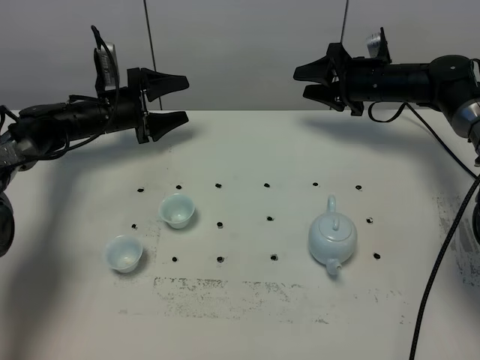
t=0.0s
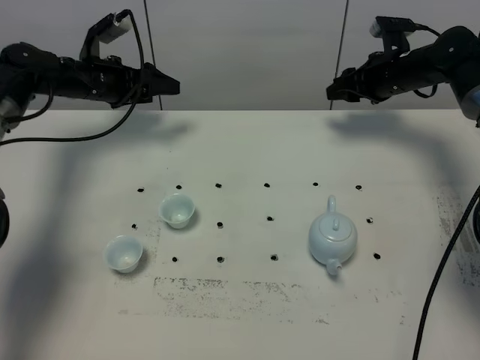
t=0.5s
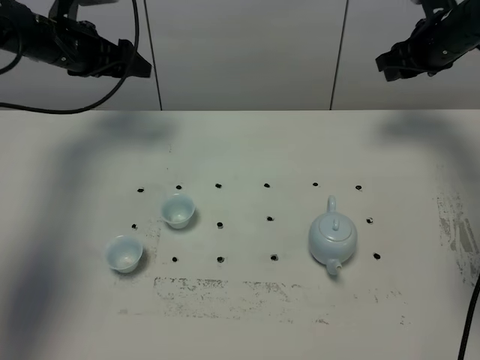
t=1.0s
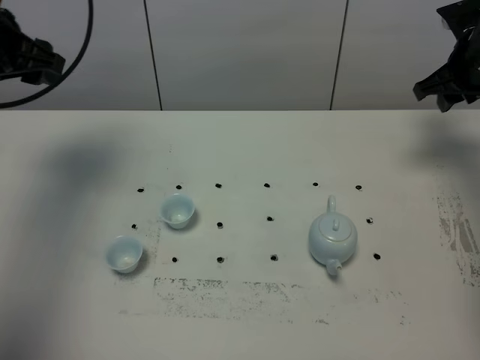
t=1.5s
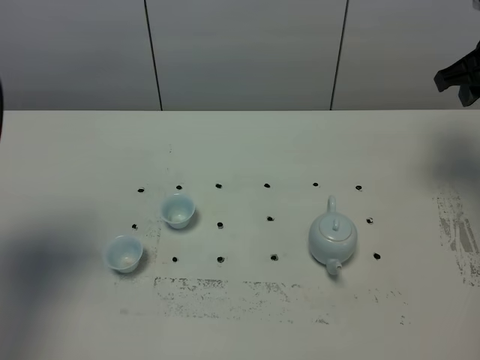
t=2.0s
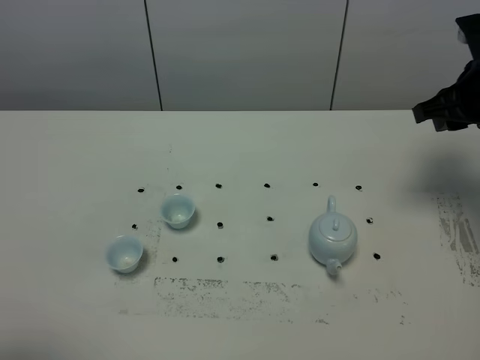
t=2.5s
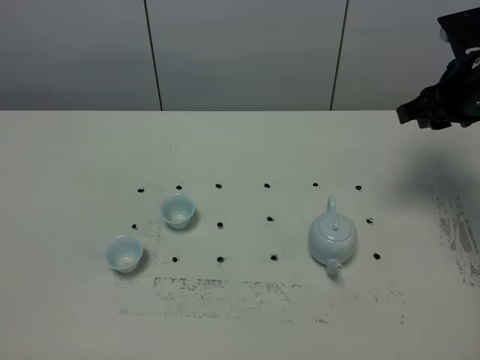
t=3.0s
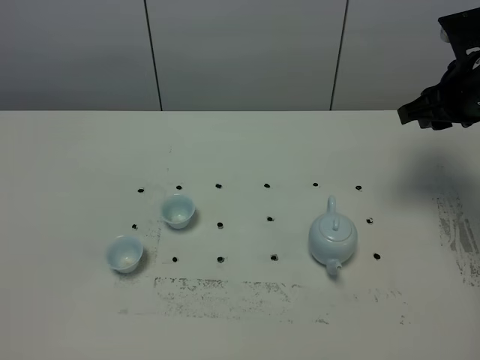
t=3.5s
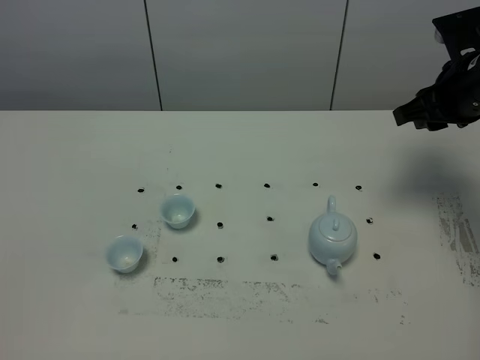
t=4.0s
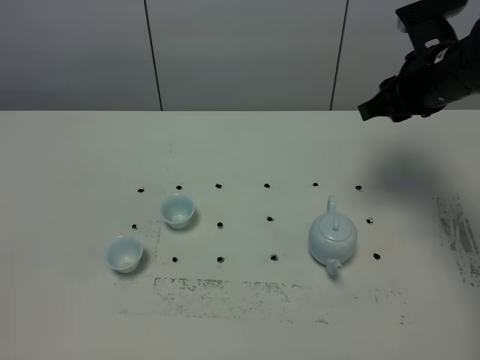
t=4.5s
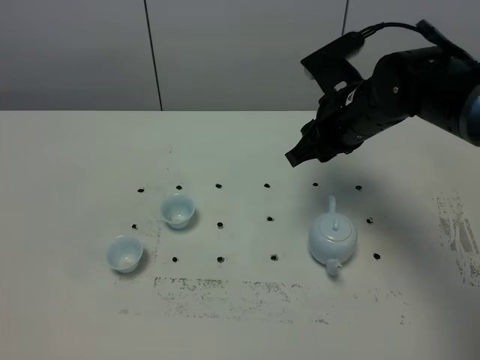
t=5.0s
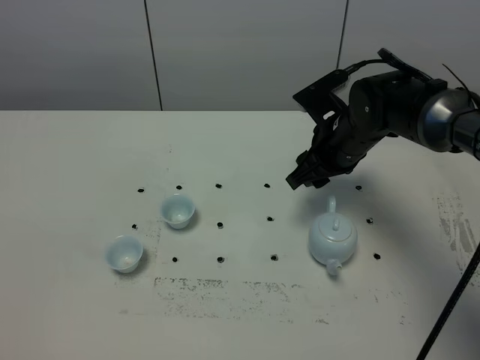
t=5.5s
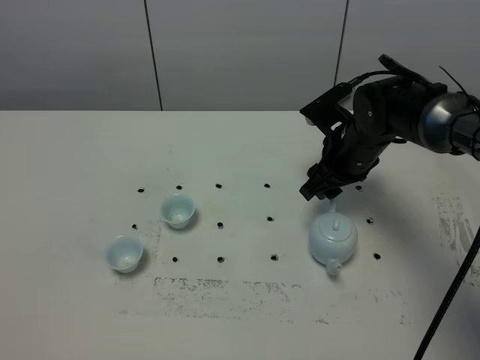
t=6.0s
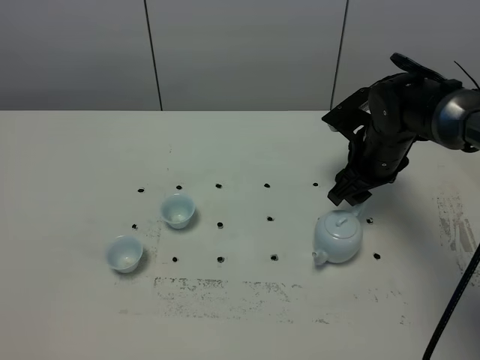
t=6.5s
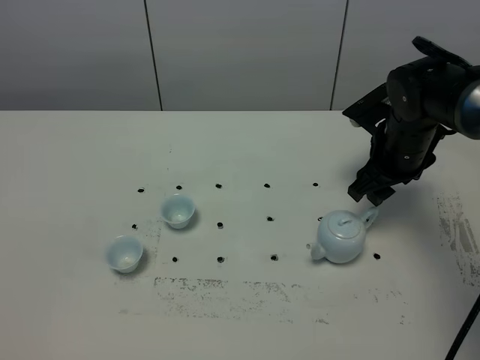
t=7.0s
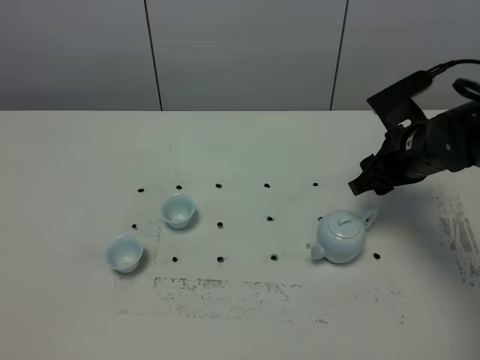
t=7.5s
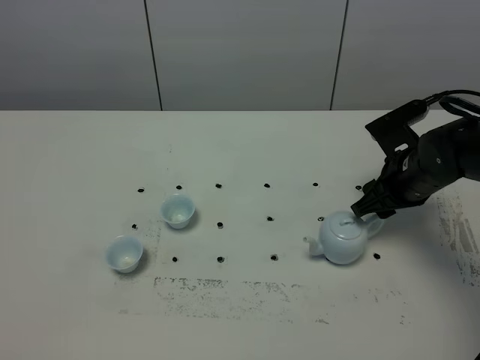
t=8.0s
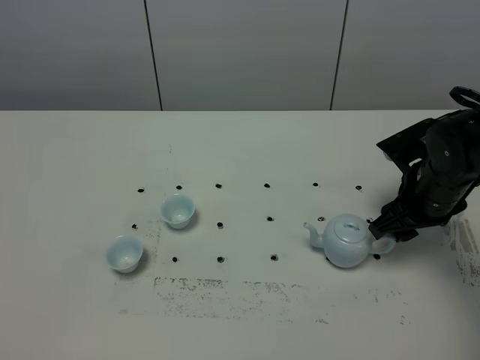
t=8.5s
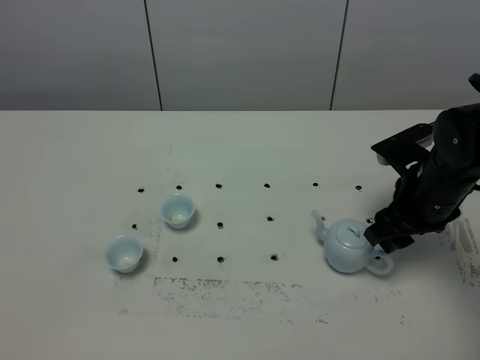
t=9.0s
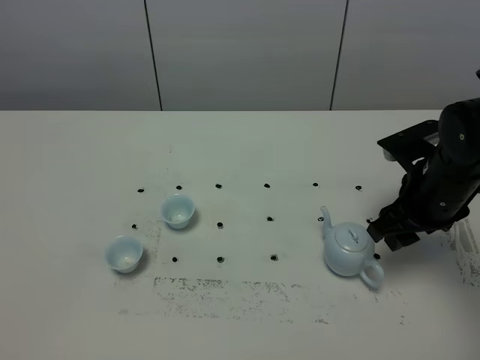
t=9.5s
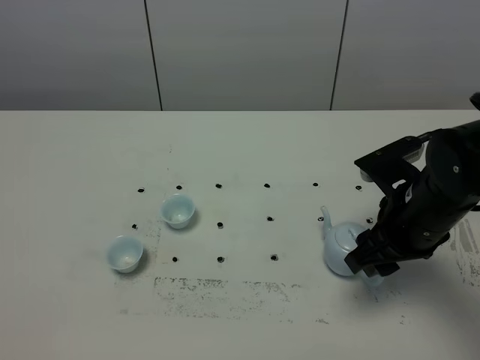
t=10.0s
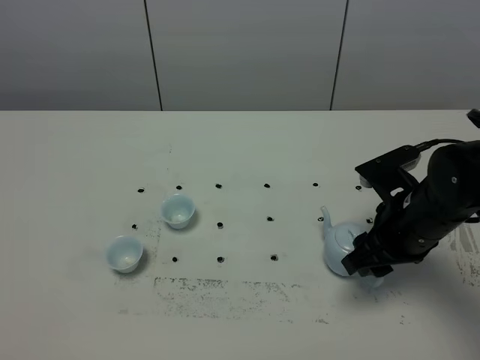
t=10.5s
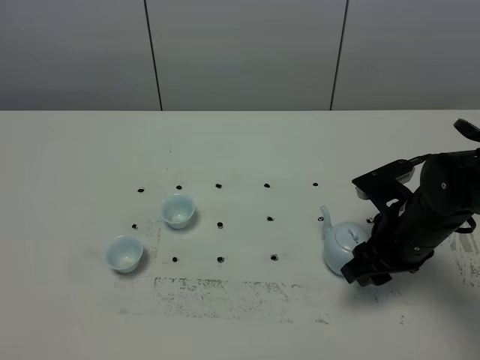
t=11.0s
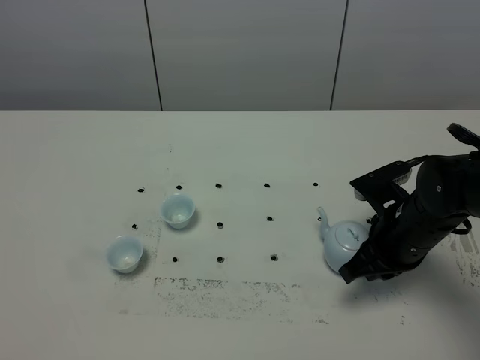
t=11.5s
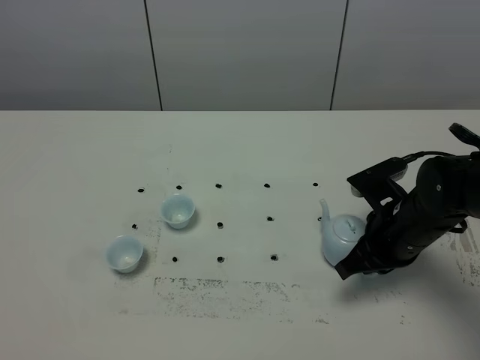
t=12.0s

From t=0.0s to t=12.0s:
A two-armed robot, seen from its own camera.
Task of the whole recording: grasp the blue porcelain teapot and pour the tea into the two blue porcelain teacups one by one, put the blue porcelain teapot back in its original place.
From t=0.0s to t=2.0s: The left gripper is displaced backward and upward by about 40 cm, and closes its fingers. Meanwhile the right gripper is displaced upward, backward and to the right by about 25 cm.
From t=2.0s to t=4.0s: The left gripper travels backward by roughly 25 cm. Meanwhile the right gripper ends up some 5 cm from where it was.
From t=4.0s to t=6.0s: The right gripper shifts about 15 cm downward and to the left.
From t=6.0s to t=8.0s: The right gripper heads to the right, covering roughly 5 cm.
From t=8.0s to t=10.0s: The right gripper goes approximately 10 cm backward.
From t=10.0s to t=12.0s: The right gripper moves downward, roughly 5 cm, and closes.

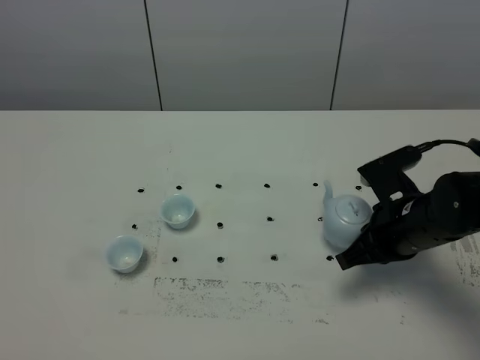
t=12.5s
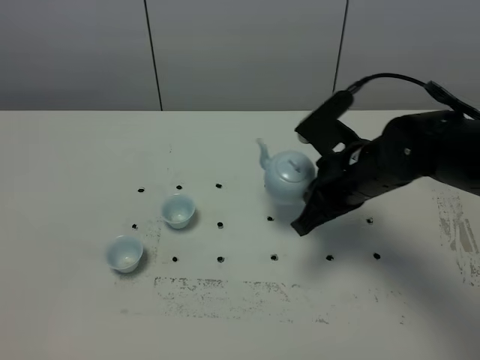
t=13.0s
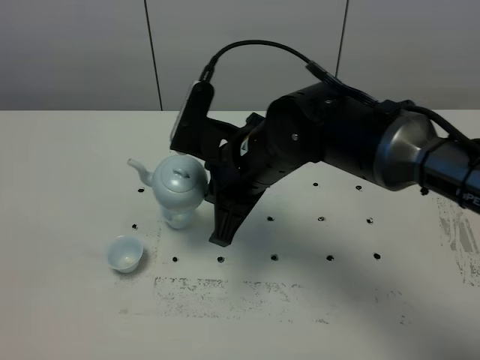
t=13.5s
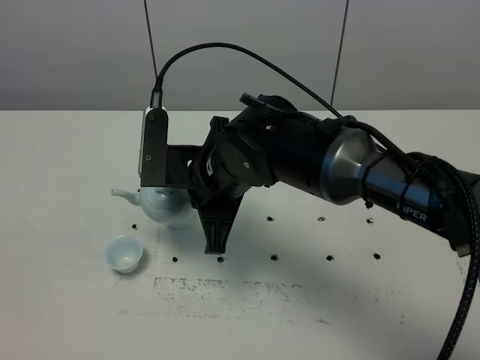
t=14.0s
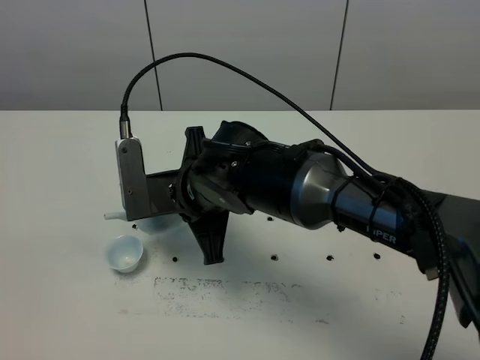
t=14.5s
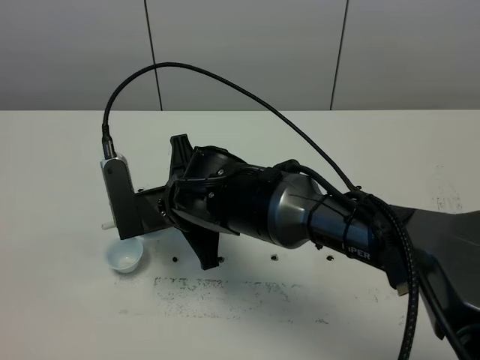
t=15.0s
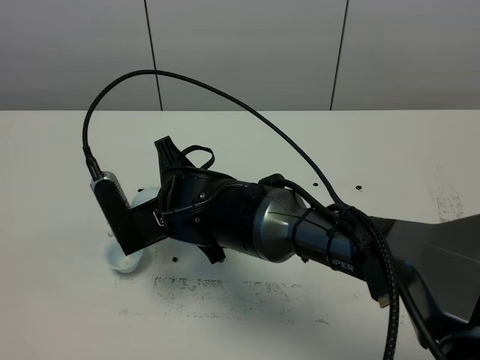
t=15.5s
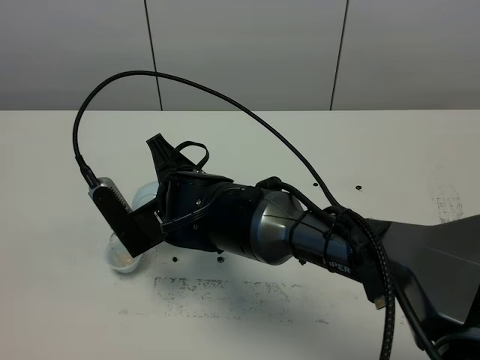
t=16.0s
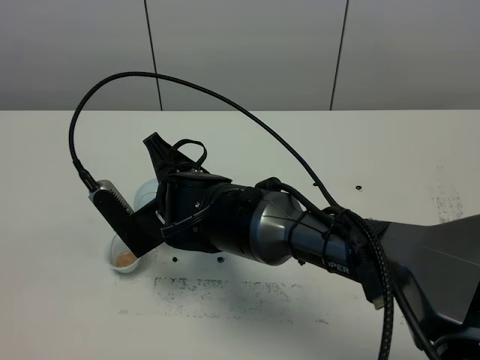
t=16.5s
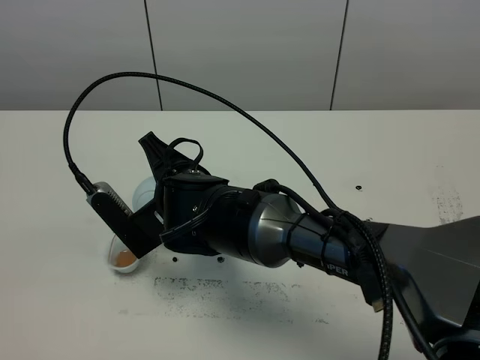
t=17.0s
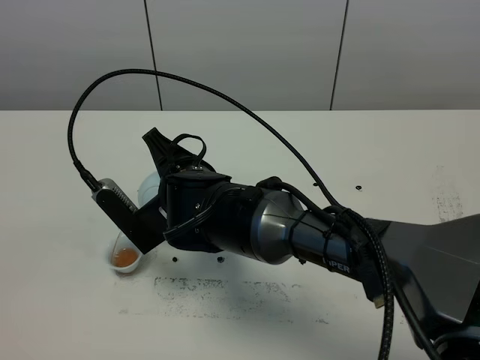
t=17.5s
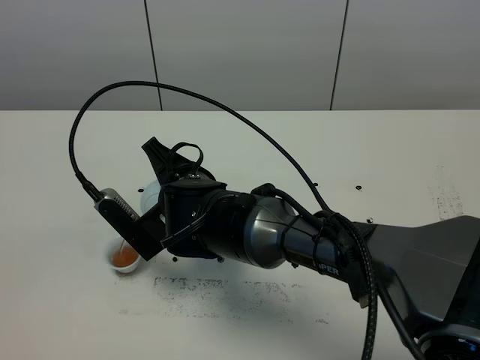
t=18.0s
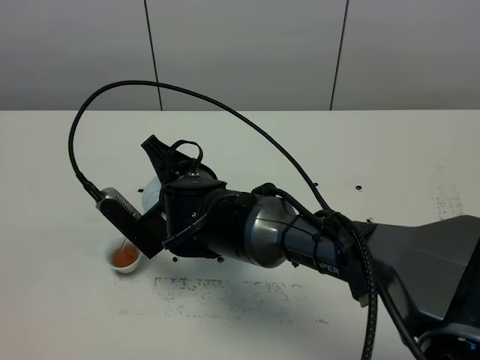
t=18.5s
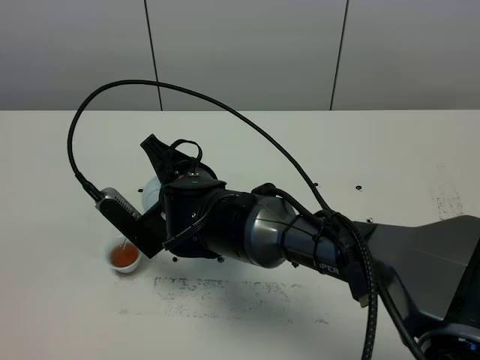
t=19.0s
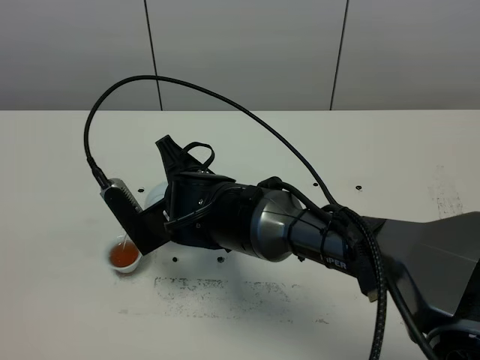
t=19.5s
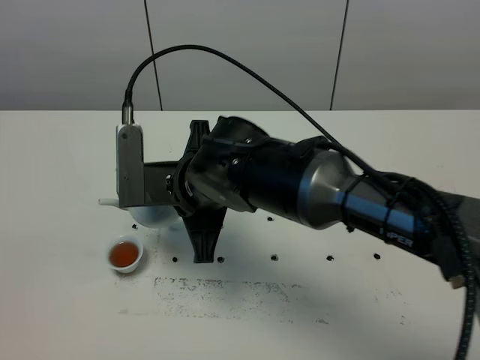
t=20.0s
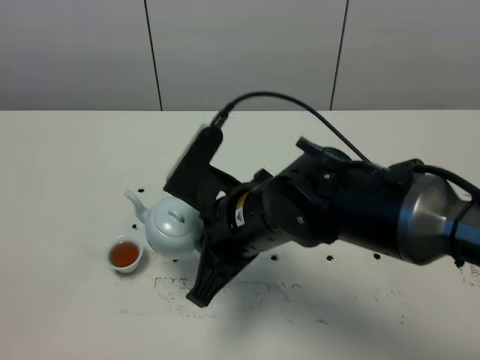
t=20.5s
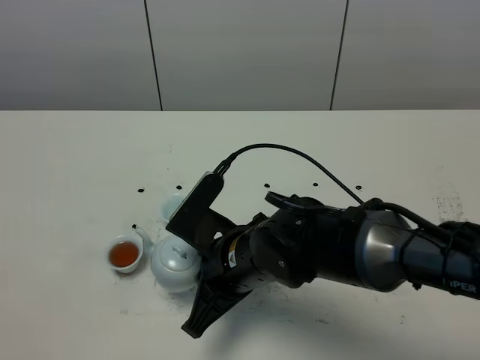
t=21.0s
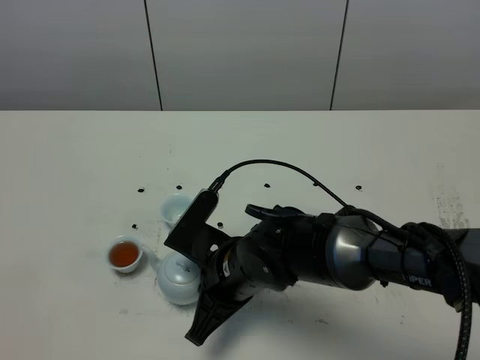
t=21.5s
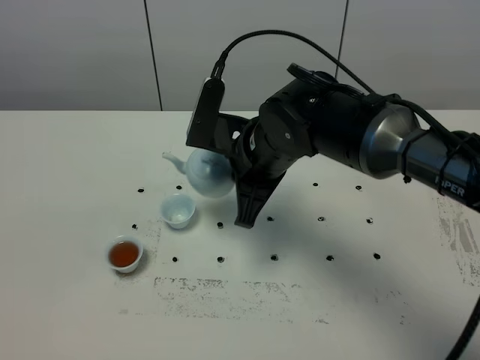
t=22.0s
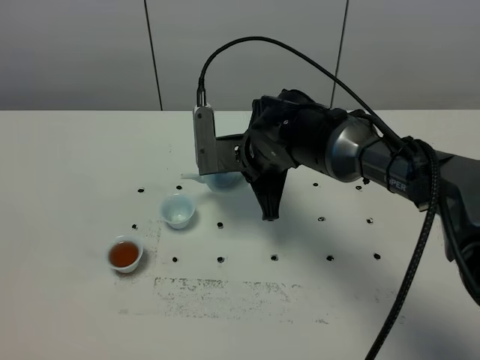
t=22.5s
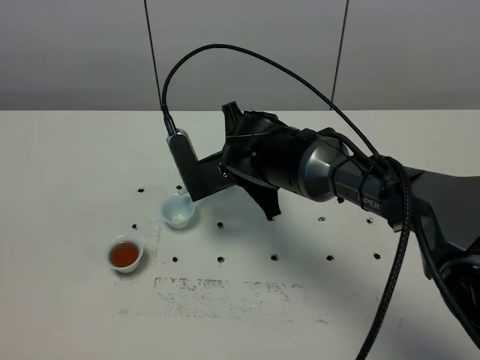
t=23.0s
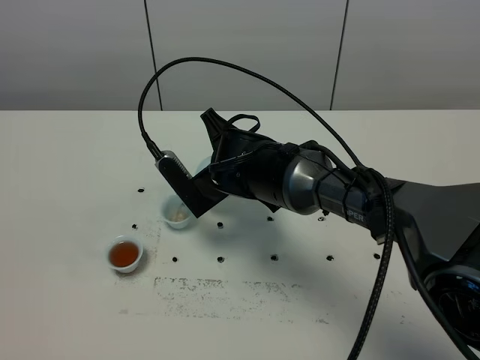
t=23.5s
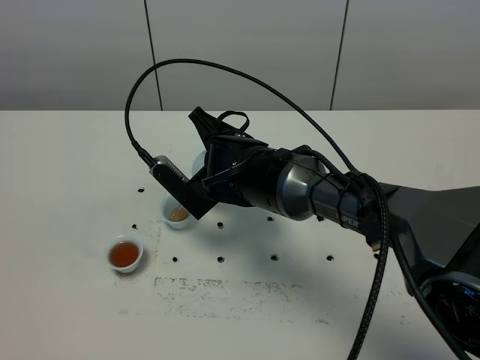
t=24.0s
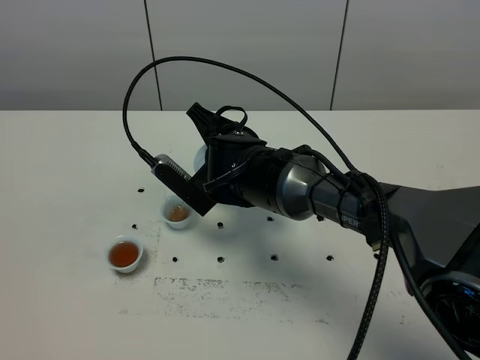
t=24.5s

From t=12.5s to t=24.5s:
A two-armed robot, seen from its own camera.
Task of the whole recording: grasp the blue porcelain teapot and pour the tea into the two blue porcelain teacups one by one, put the blue porcelain teapot back in its original place.
From t=12.5s to t=14.5s: The right gripper heads to the left, covering some 25 cm.
From t=16.5s to t=18.5s: The grippers stay close to where they were, moving slightly.
From t=18.5s to t=20.5s: The right gripper heads to the right and backward, covering roughly 10 cm.
From t=20.5s to t=22.5s: The right gripper is displaced forward by roughly 15 cm.

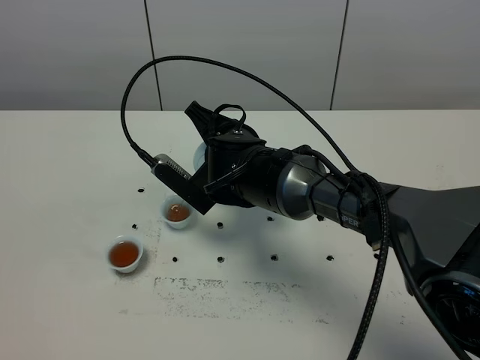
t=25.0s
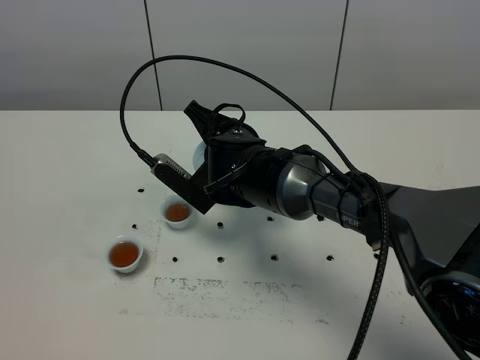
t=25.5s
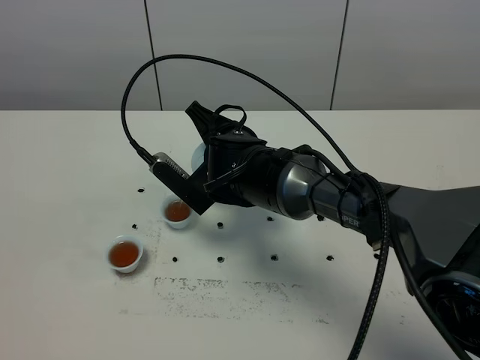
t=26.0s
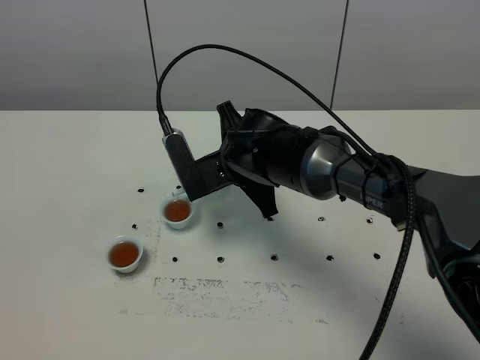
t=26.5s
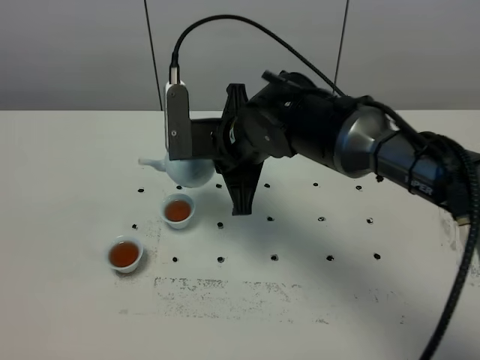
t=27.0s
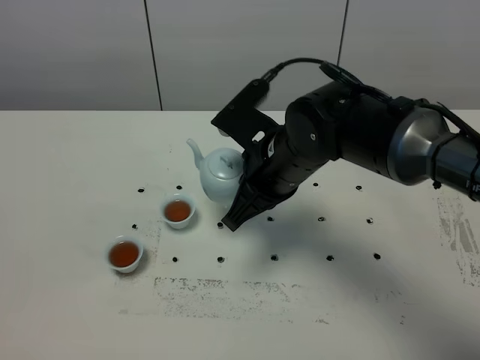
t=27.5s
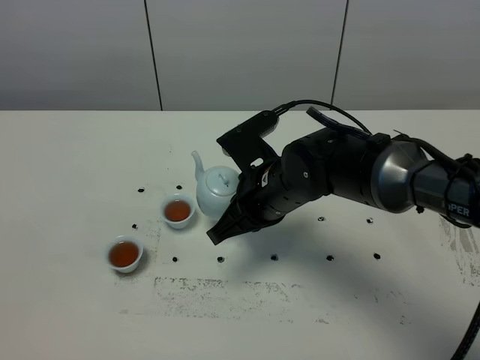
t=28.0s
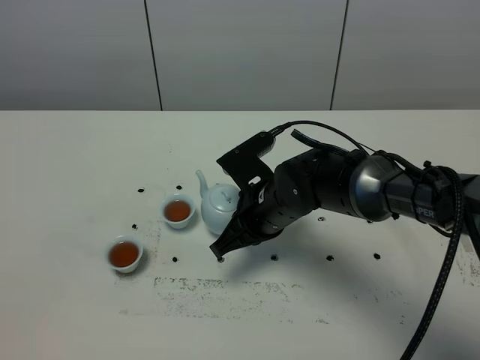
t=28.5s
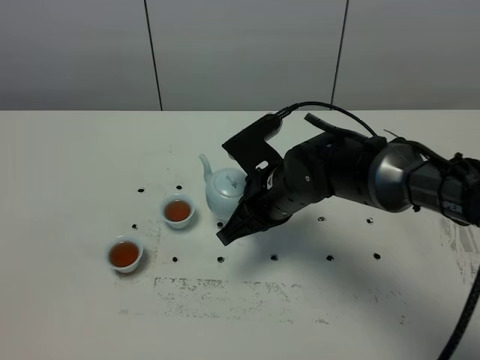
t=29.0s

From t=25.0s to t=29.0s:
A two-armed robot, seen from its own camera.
Task of the whole recording: grasp the blue porcelain teapot and pour the tea into the two blue porcelain teacups one by one, put the blue porcelain teapot back in its original place.
From t=25.0s to t=27.0s: The right gripper heads upward, covering approximately 5 cm.
From t=27.0s to t=29.0s: The right gripper travels downward by roughly 5 cm.
